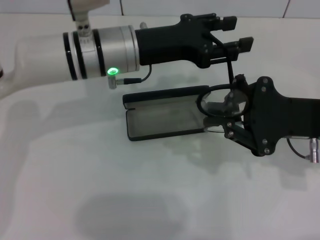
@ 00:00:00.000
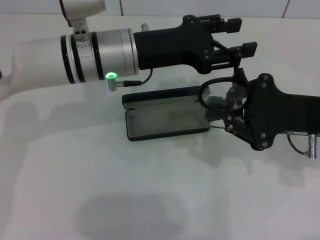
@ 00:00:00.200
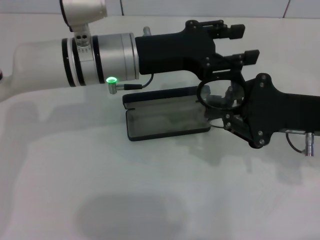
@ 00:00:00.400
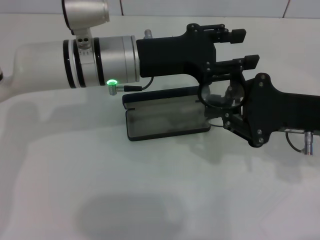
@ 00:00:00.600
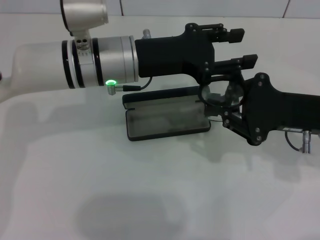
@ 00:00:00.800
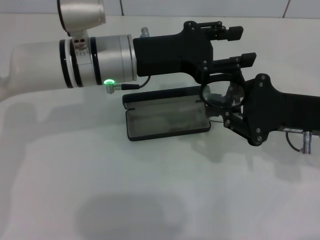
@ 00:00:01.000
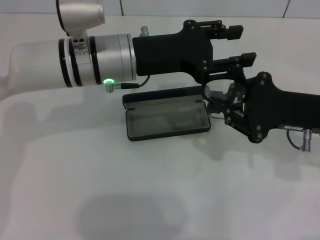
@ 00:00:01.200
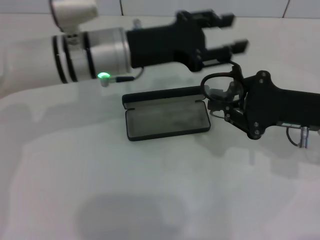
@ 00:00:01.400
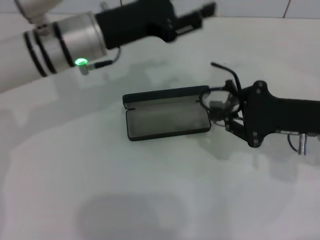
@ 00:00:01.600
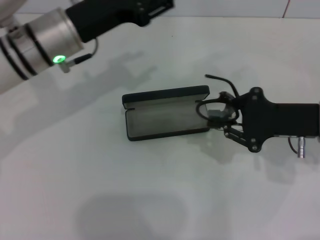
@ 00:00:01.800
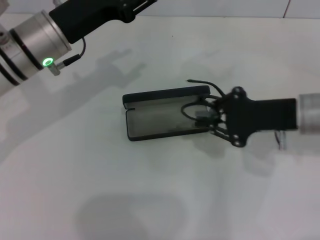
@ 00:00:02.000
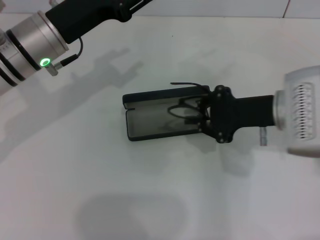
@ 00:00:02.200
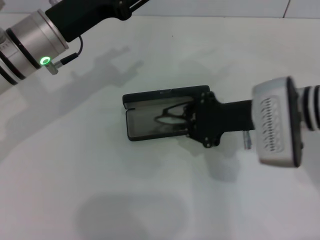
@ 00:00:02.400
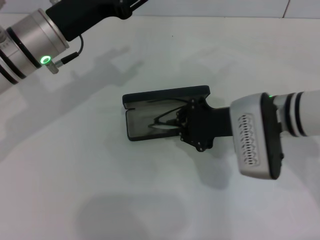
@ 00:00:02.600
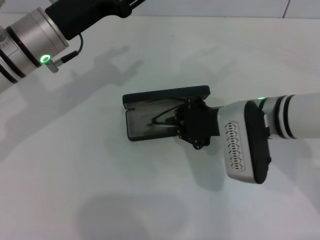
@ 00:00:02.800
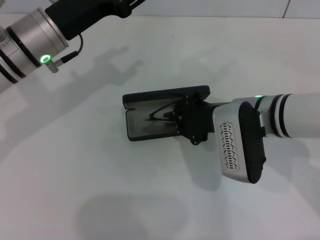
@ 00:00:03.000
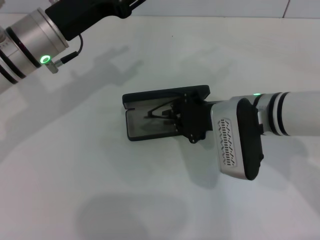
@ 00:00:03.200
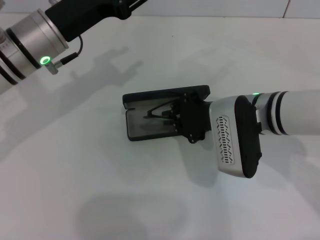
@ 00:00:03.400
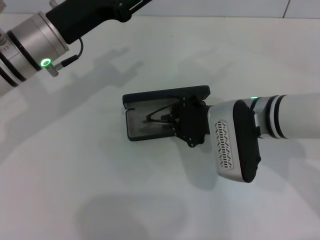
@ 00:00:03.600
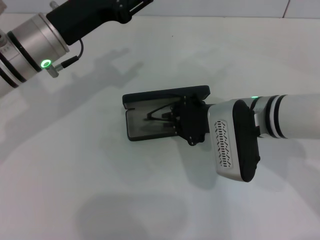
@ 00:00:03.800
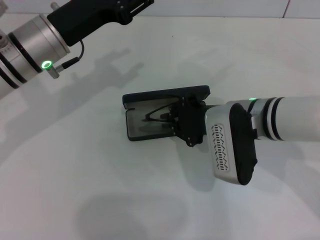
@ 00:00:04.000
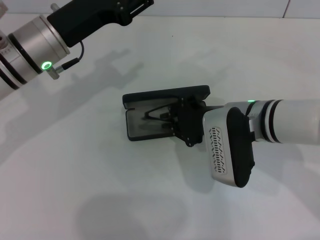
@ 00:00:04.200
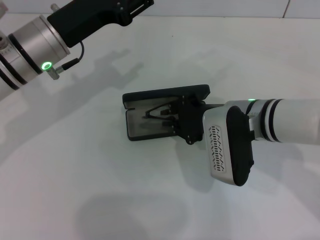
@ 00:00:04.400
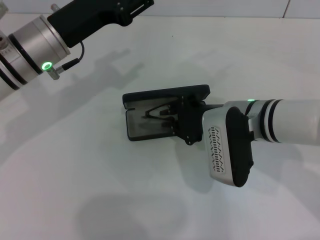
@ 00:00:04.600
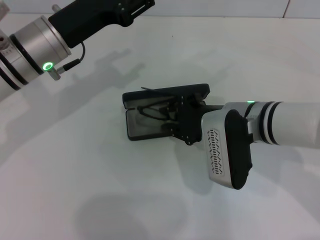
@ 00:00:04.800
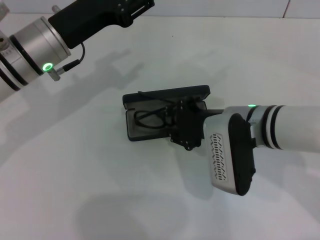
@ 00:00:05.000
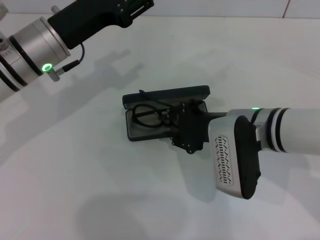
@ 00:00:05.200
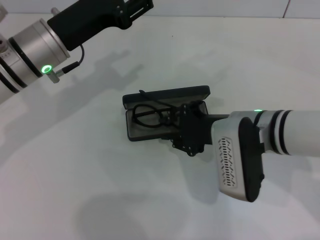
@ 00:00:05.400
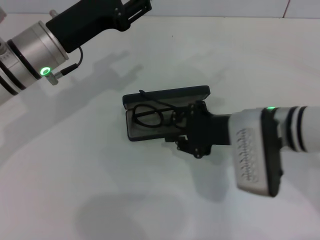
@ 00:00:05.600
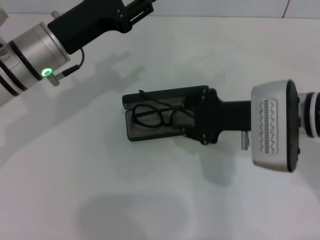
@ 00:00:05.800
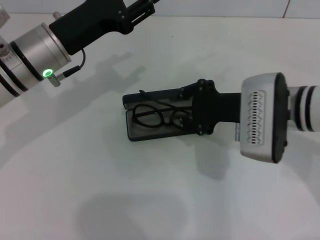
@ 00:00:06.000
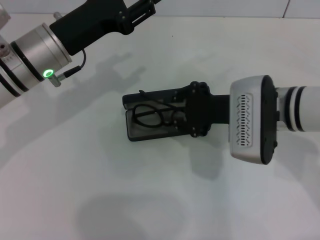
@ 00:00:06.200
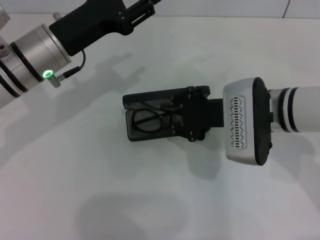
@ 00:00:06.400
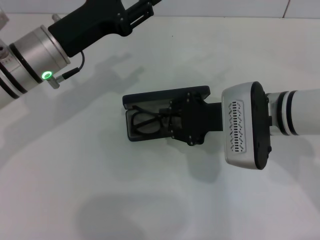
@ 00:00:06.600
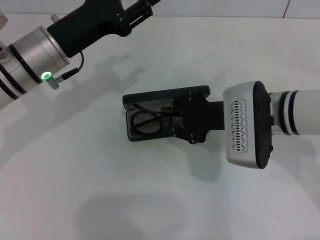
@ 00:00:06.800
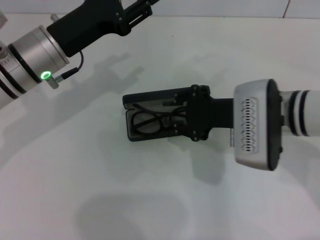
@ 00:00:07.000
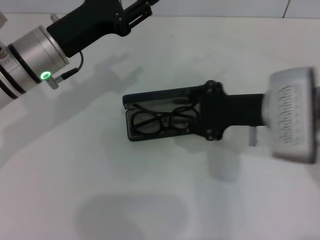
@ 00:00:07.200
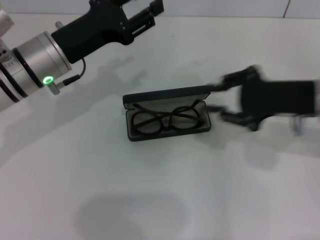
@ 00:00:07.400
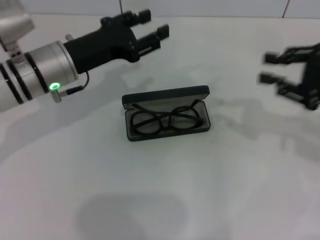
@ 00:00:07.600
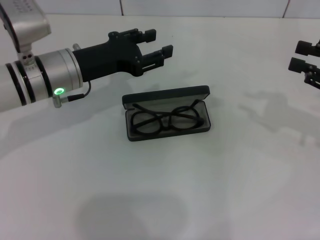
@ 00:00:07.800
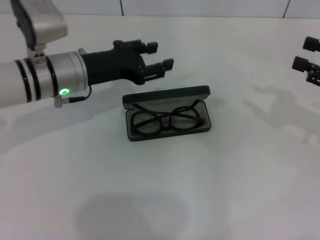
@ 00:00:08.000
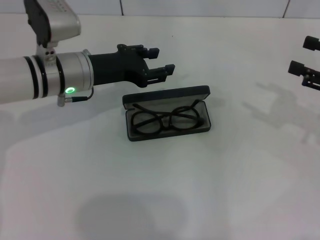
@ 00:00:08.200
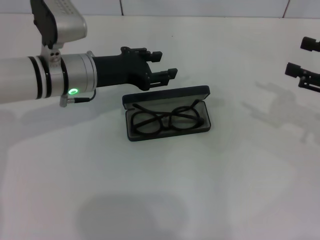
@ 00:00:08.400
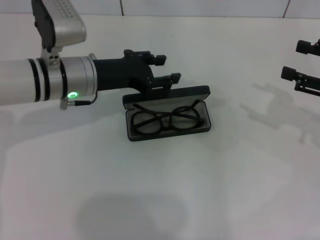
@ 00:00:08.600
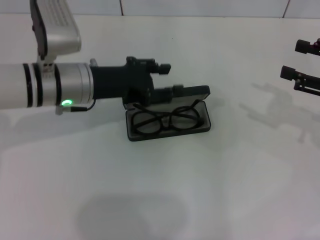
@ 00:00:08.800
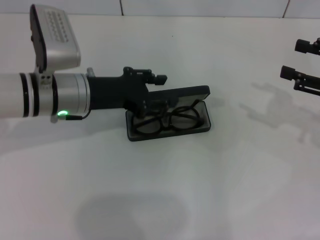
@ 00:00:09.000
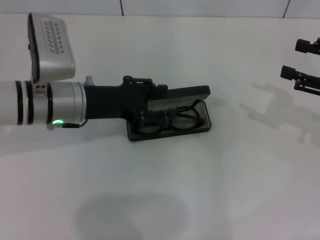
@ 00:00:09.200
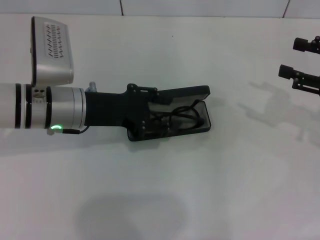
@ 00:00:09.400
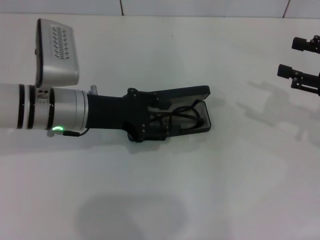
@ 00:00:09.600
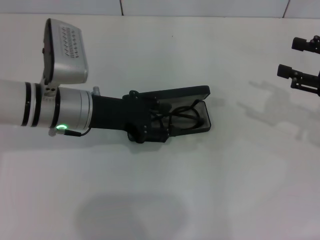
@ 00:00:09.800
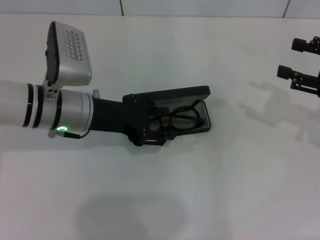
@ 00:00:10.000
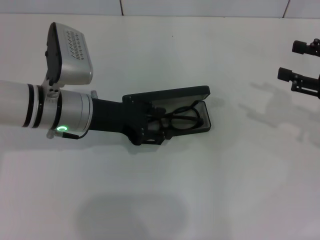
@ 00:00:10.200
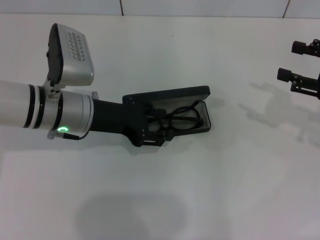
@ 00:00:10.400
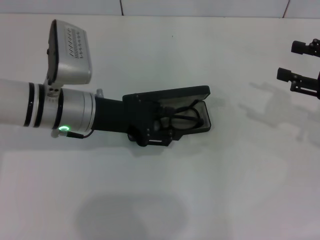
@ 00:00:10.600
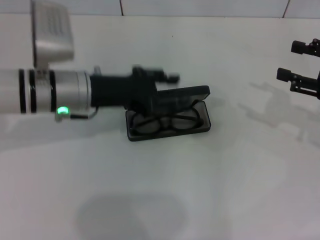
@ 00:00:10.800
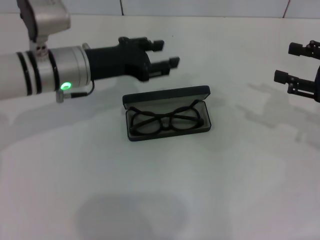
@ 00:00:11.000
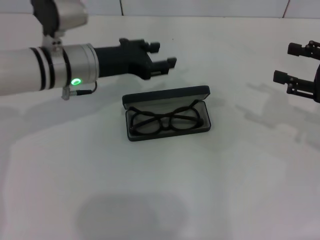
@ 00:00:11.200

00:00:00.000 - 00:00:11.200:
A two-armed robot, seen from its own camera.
Step, 00:00:01.200 - 00:00:07.000: Put the glasses into the case with your right hand.
00:00:01.600 - 00:00:03.200: The right gripper goes some 10 cm to the left.
00:00:03.200 - 00:00:06.400: The grippers make only small movements.
00:00:06.400 - 00:00:08.000: The right gripper travels to the right by some 20 cm.
00:00:08.000 - 00:00:09.600: The right gripper opens its fingers.
00:00:09.600 - 00:00:11.200: The left gripper is displaced forward by roughly 5 cm.

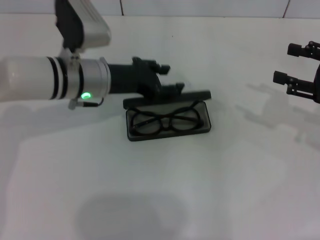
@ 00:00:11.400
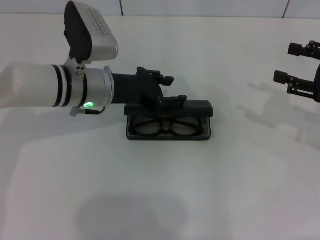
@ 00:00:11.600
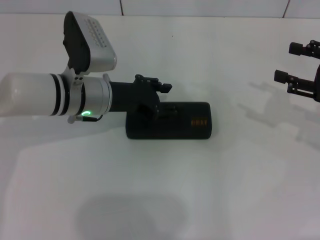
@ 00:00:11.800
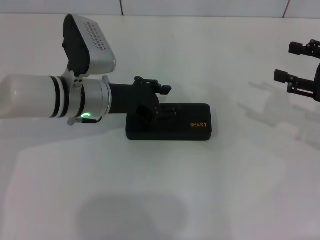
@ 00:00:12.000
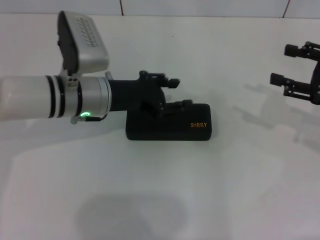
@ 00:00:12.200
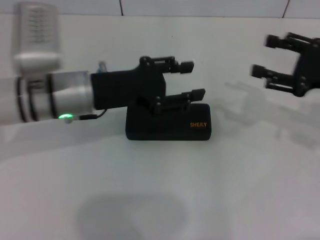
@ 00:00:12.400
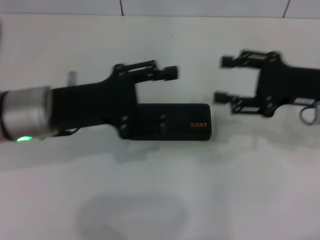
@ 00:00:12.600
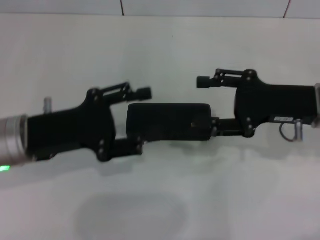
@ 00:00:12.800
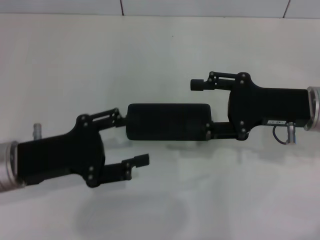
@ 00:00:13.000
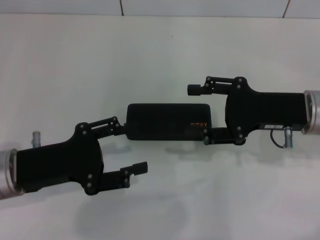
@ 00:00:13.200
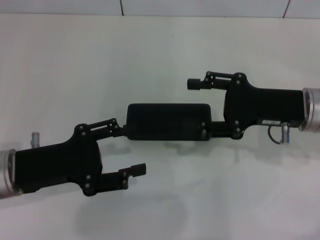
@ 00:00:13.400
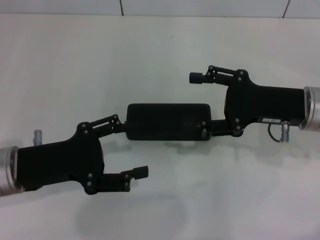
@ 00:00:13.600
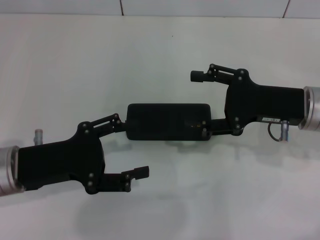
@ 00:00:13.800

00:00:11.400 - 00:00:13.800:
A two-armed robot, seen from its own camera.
00:00:11.400 - 00:00:12.600: The right gripper moves to the left, roughly 10 cm; the left gripper moves backward and to the left, some 10 cm.
00:00:12.600 - 00:00:13.800: The left gripper goes about 5 cm backward.
